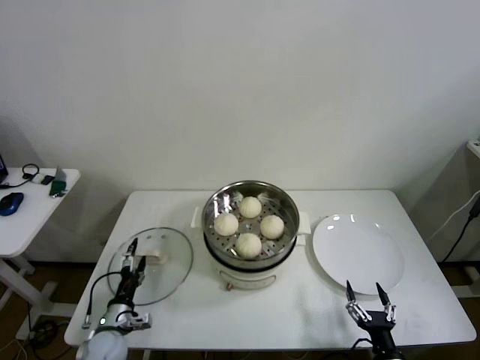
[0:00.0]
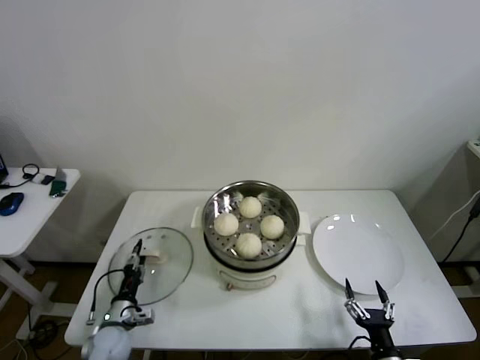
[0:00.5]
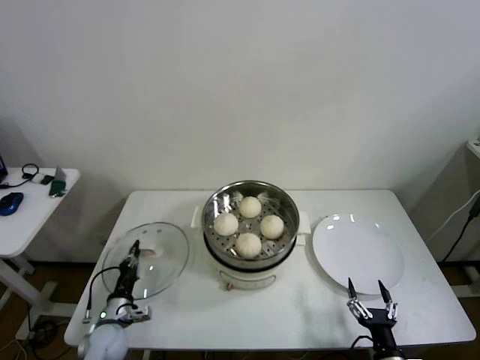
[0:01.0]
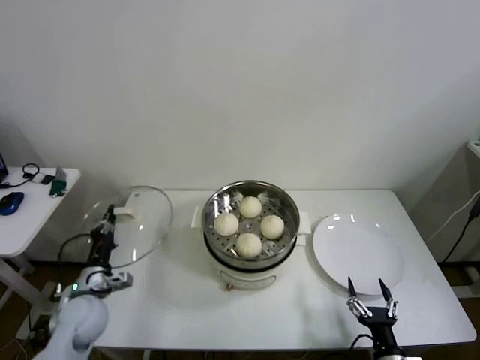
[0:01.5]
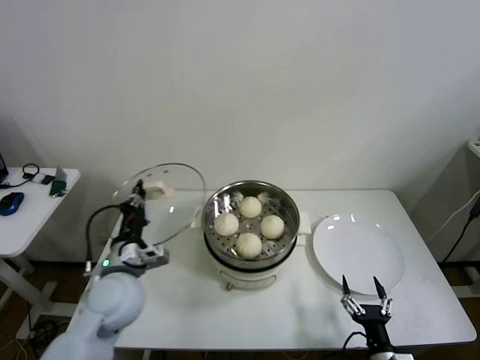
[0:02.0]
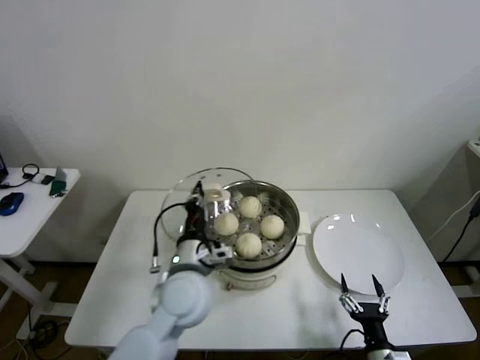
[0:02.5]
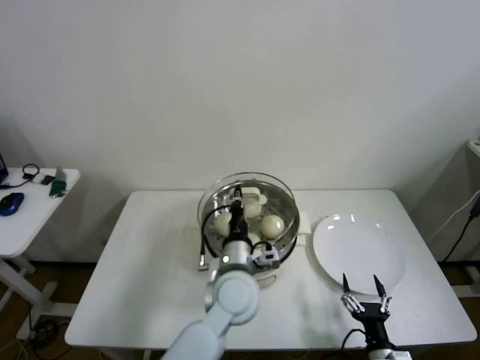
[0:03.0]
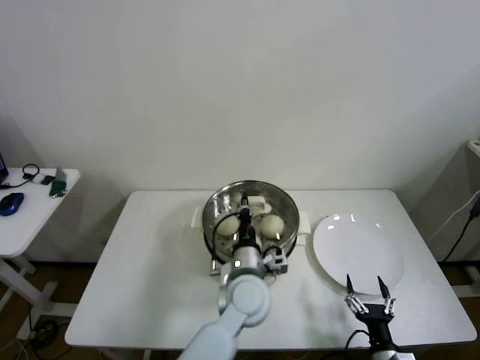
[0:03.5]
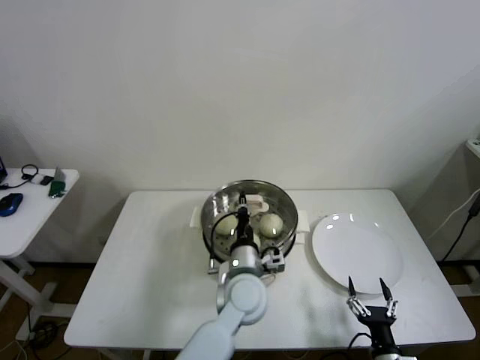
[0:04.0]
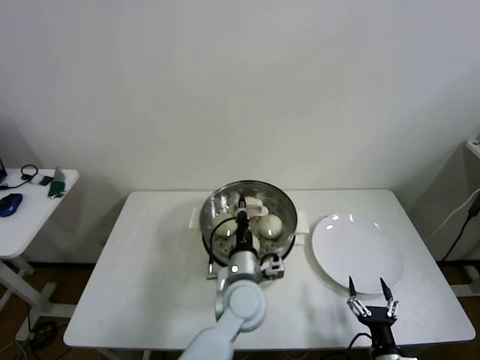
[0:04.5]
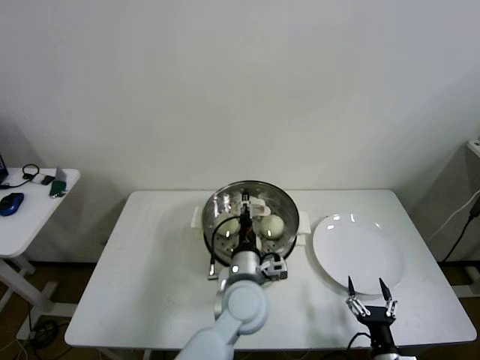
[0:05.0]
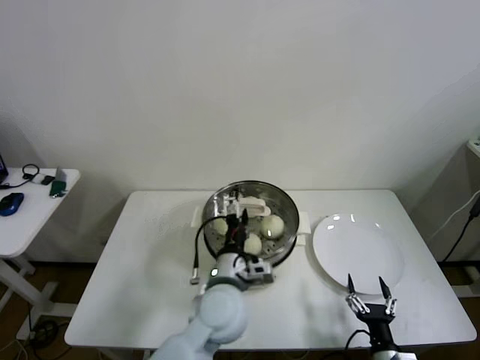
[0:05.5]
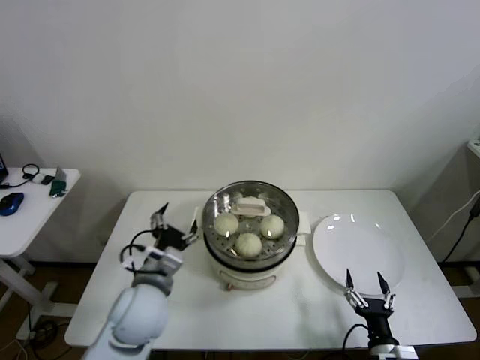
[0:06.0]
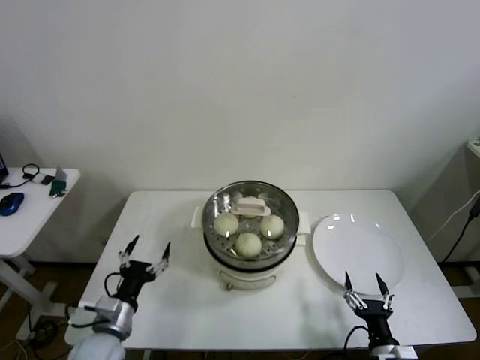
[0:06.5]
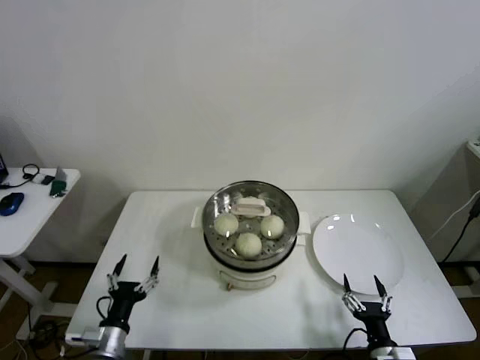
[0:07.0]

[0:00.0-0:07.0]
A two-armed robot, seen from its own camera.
Step, 0:01.0 to 0:04.5: Place the pot lid on the steamer with left gripper.
0:00.0 to 0:02.0: The left gripper is displaced upward by about 20 cm, and closes.
0:02.0 to 0:03.5: The left gripper travels to the right by roughly 25 cm.
0:03.5 to 0:05.0: The left gripper opens its fingers.
0:05.0 to 0:07.0: The left gripper goes some 30 cm to the left, and opens up.
